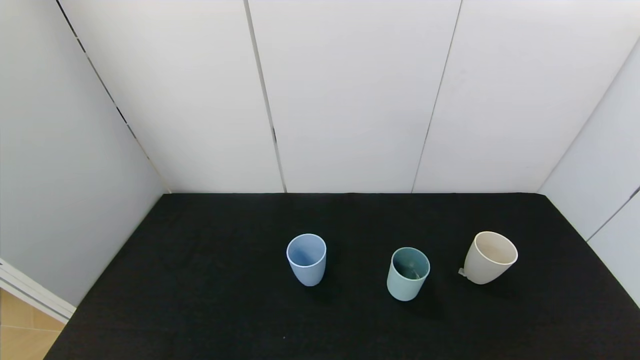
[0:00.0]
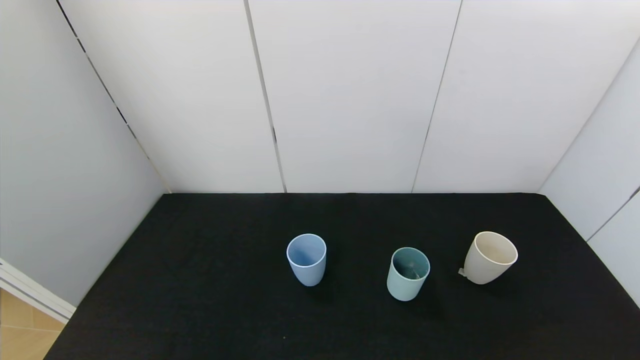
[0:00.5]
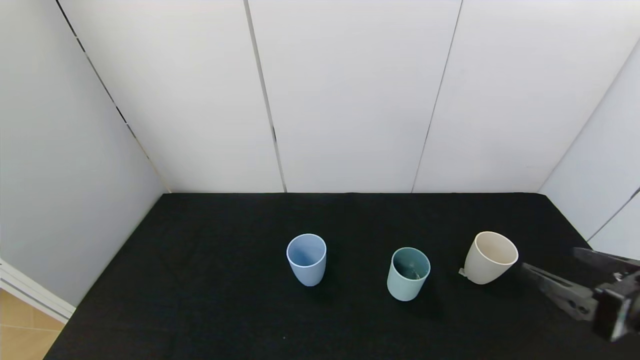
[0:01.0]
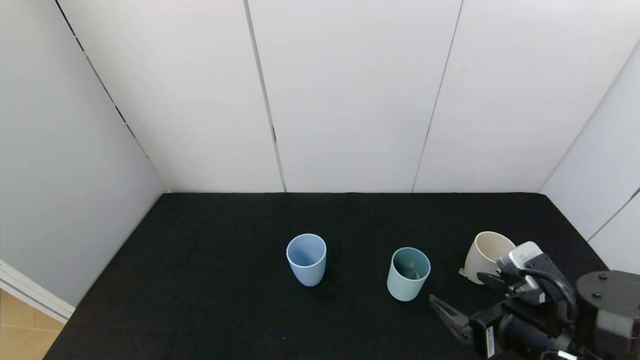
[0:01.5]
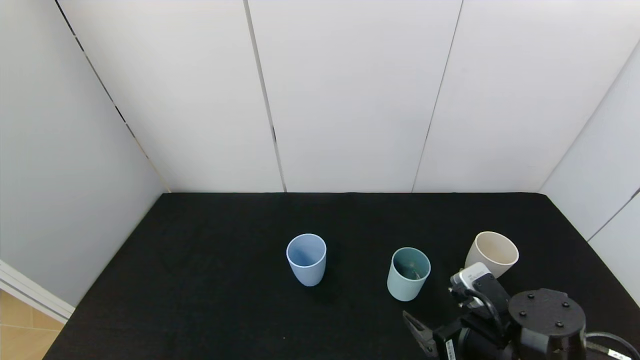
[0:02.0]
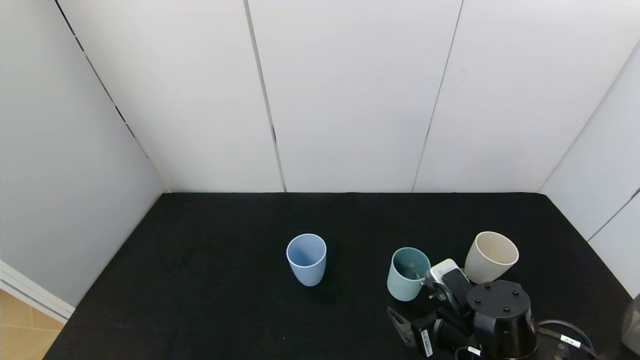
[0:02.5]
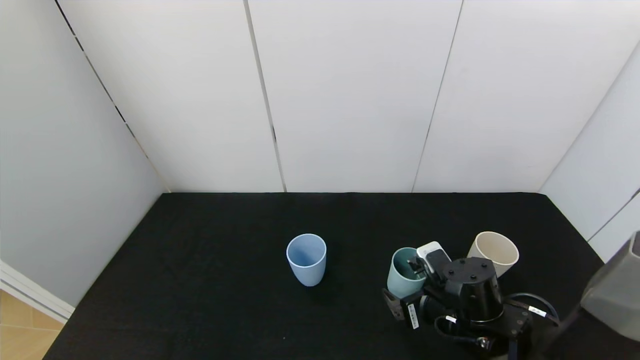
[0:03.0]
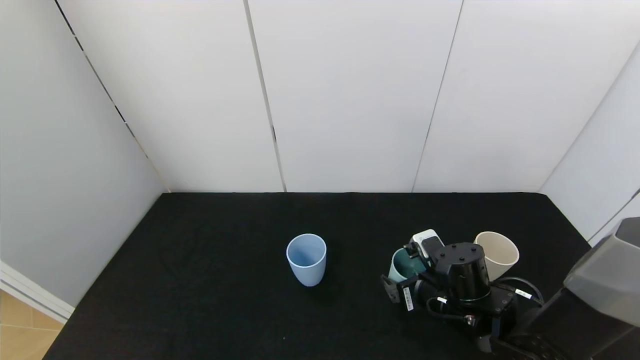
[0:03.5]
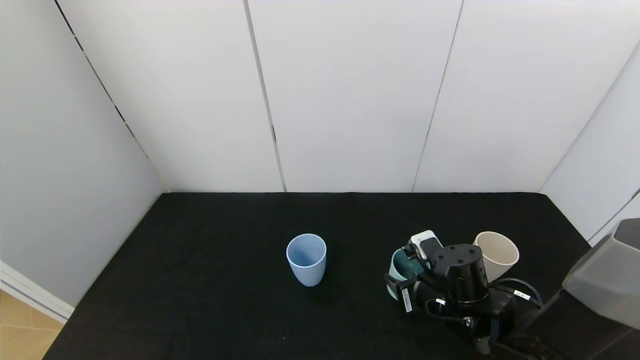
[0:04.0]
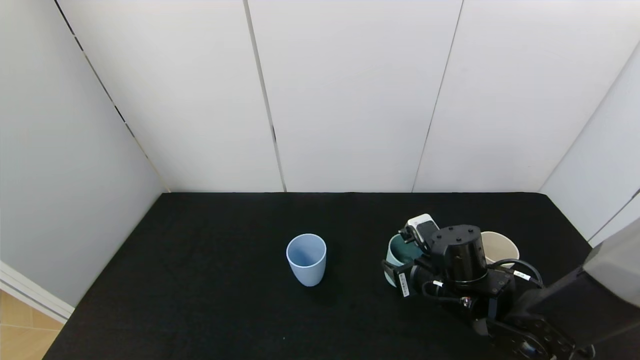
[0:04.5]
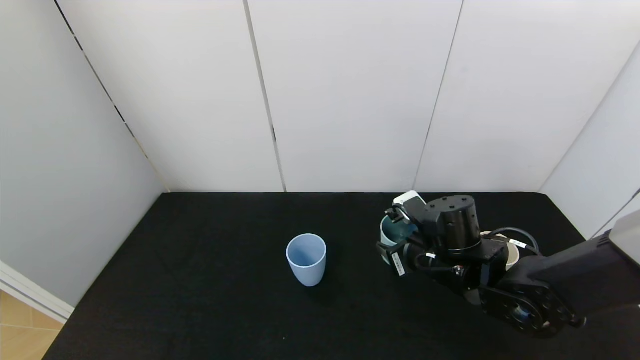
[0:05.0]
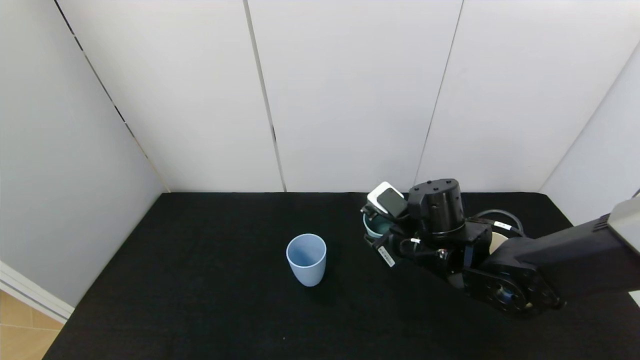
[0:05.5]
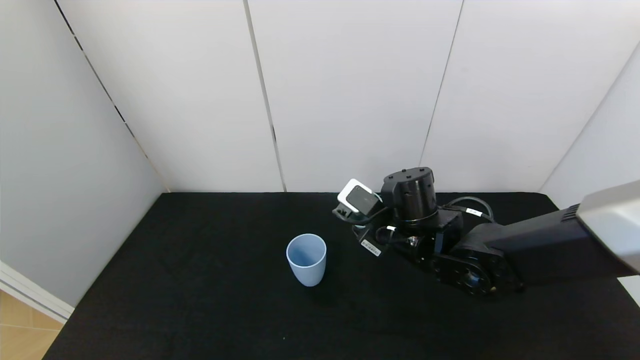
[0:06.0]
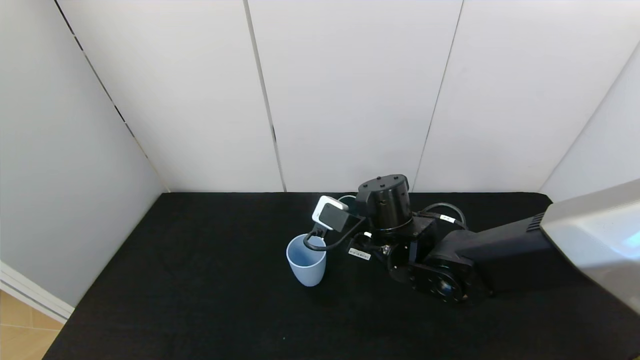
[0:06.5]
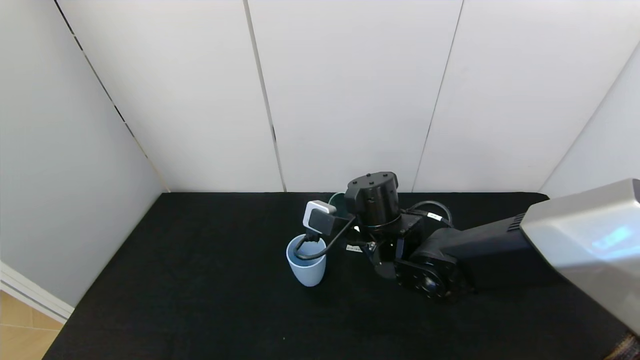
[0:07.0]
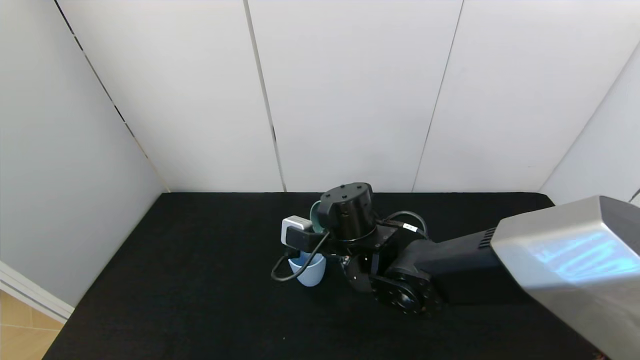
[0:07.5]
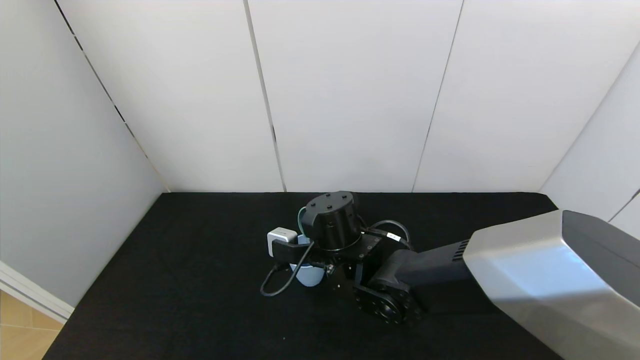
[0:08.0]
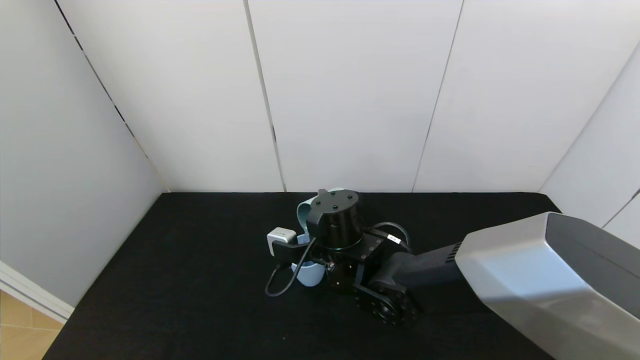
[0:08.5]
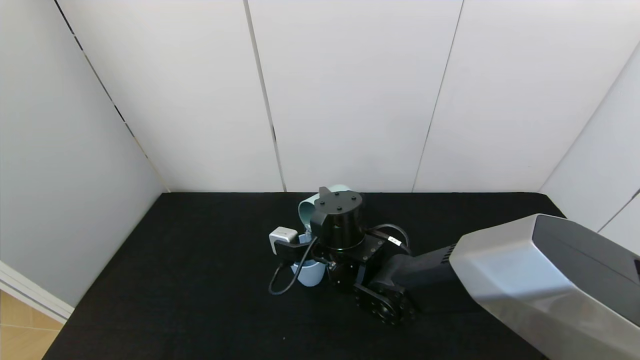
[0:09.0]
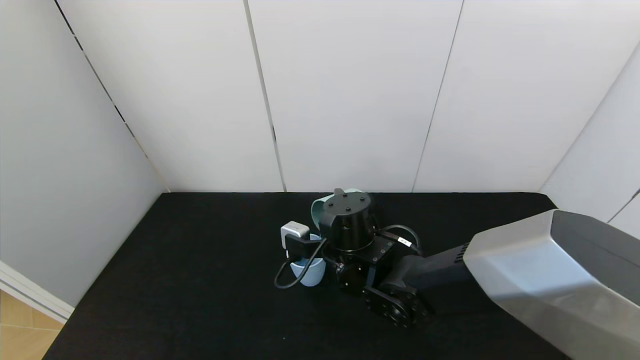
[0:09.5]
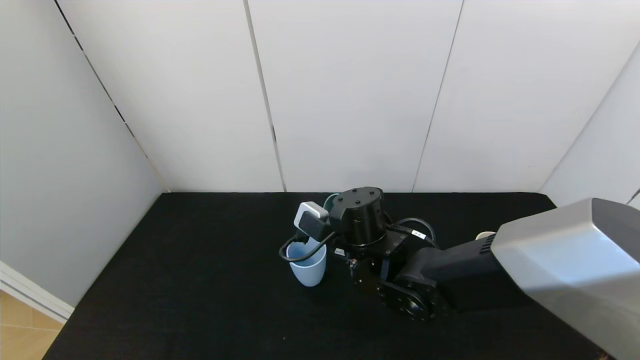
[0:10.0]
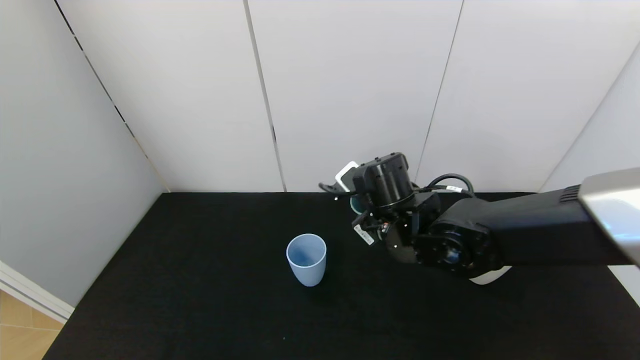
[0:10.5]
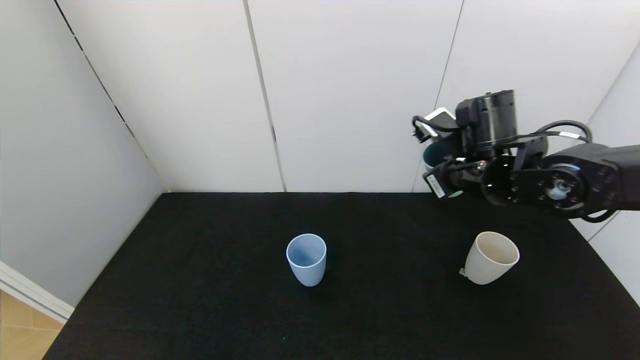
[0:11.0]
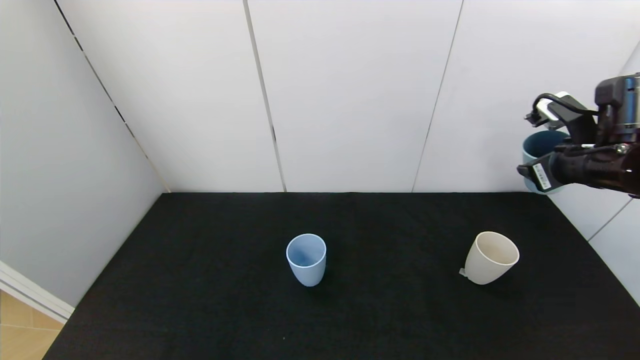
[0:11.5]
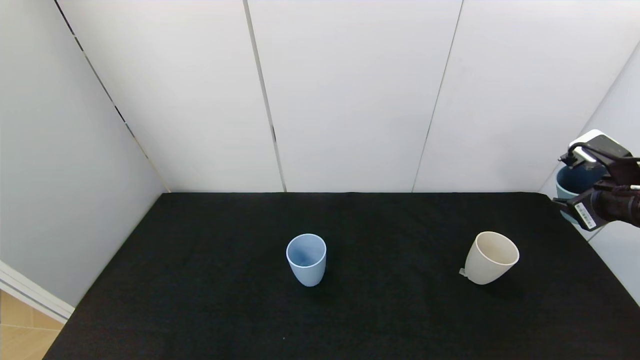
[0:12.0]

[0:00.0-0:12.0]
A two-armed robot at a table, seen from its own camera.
Task of the whole recording: use the gripper to pour the water into the other two cups on black table.
Step, 0:00.0 to 0:04.0: Grasp the green cup with the right gripper.
Step, 0:04.5 to 0:10.0: Pour water from green cup to blue cup with the right gripper.
0:00.0 to 0:02.0: The right gripper shifts about 25 cm forward and to the left.
0:02.0 to 0:04.0: The right gripper travels forward by roughly 10 cm, and closes its fingers.
0:04.0 to 0:06.0: The right gripper travels upward and to the left by some 10 cm.
0:06.0 to 0:08.0: The right gripper heads to the left, covering approximately 10 cm.
0:10.0 to 0:12.0: The right gripper moves to the right, approximately 35 cm.

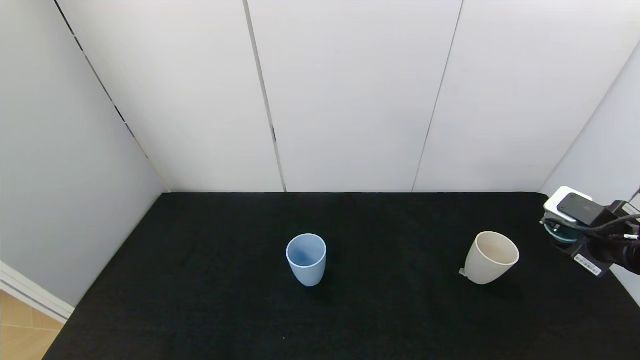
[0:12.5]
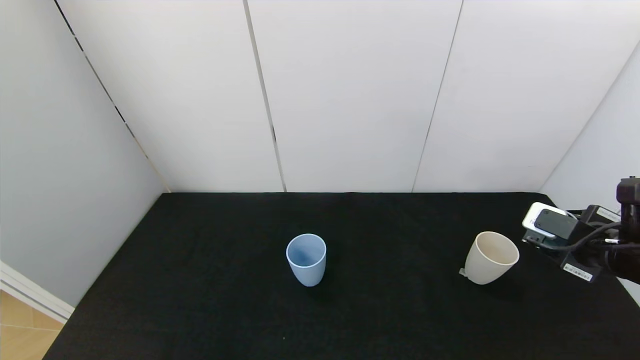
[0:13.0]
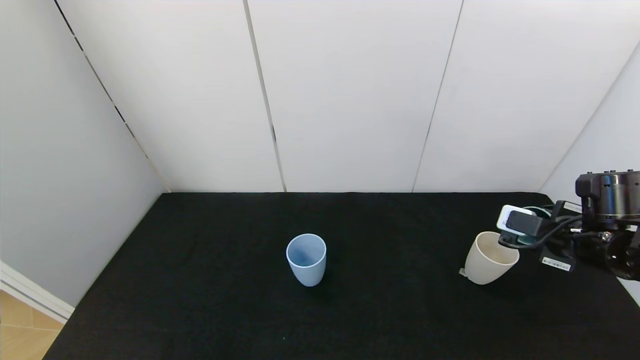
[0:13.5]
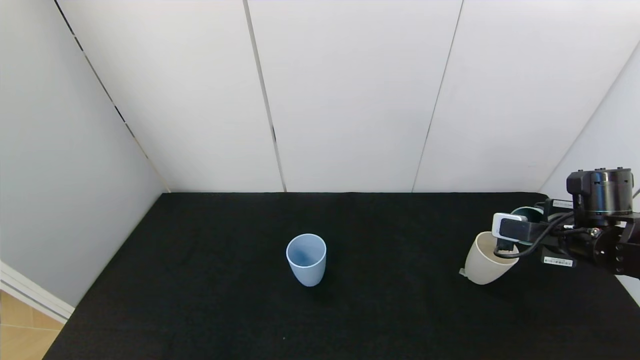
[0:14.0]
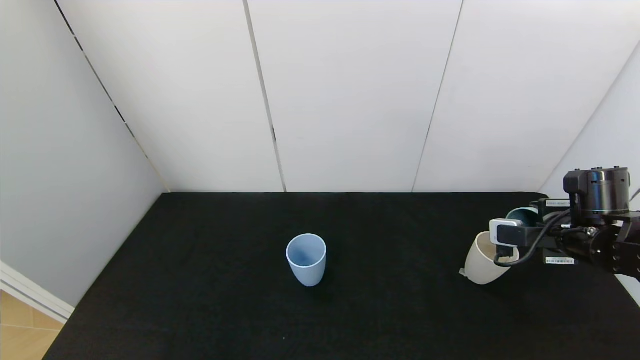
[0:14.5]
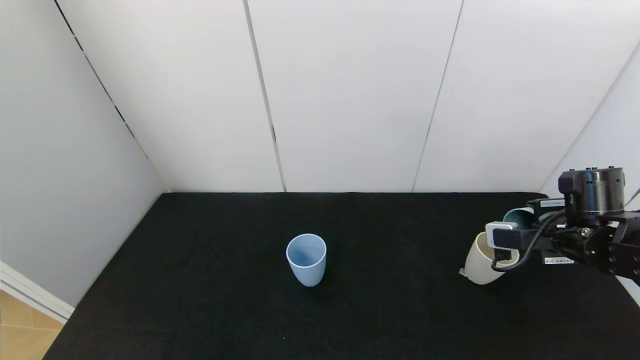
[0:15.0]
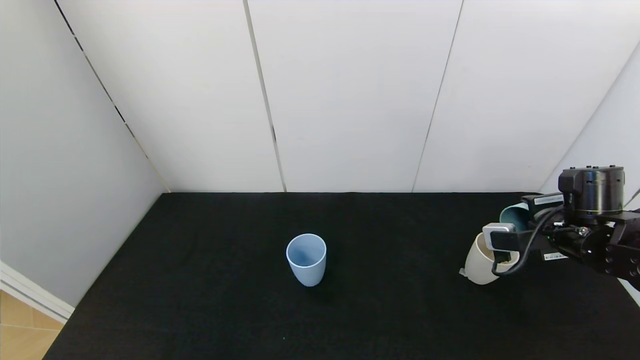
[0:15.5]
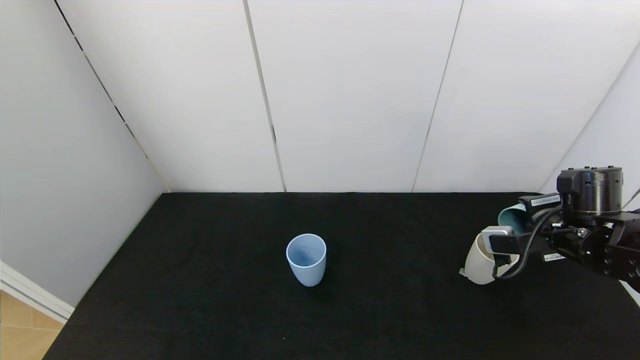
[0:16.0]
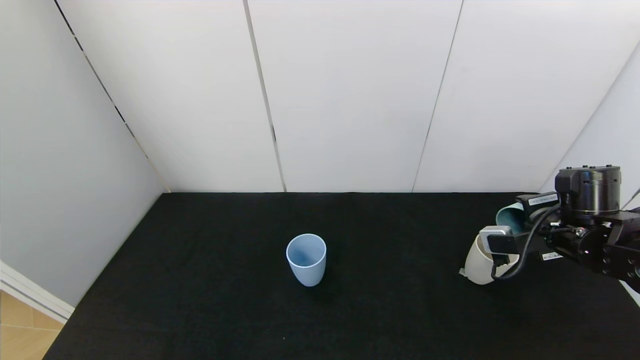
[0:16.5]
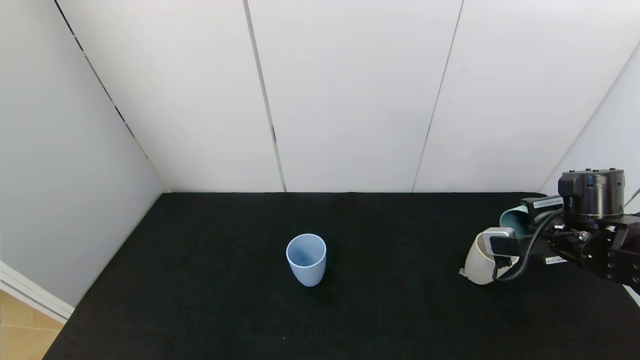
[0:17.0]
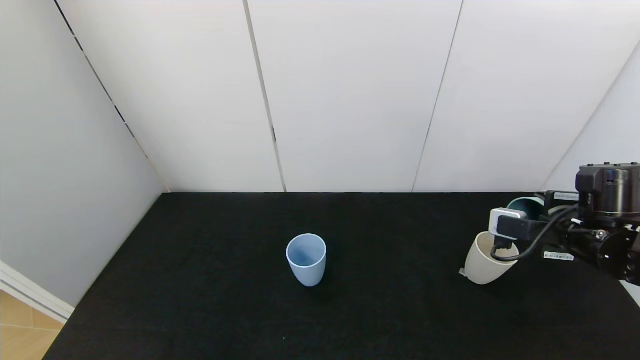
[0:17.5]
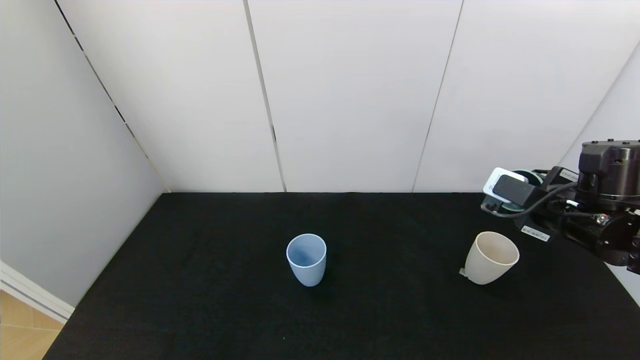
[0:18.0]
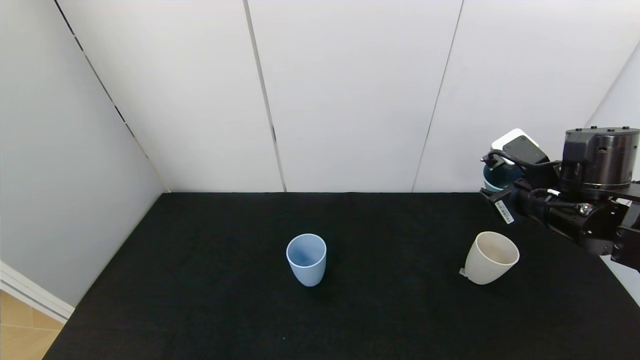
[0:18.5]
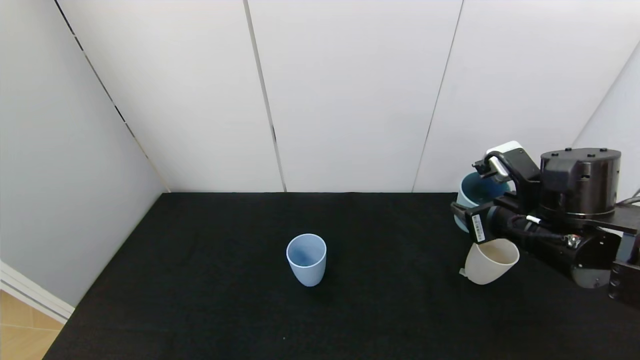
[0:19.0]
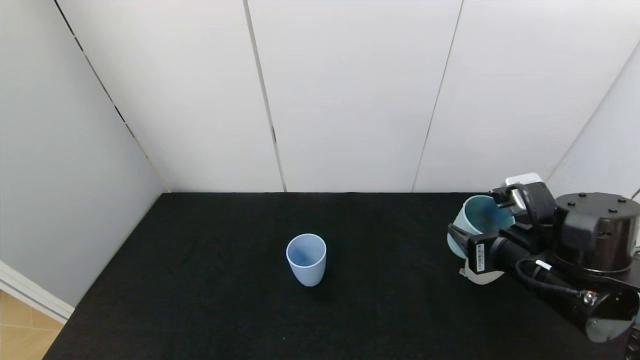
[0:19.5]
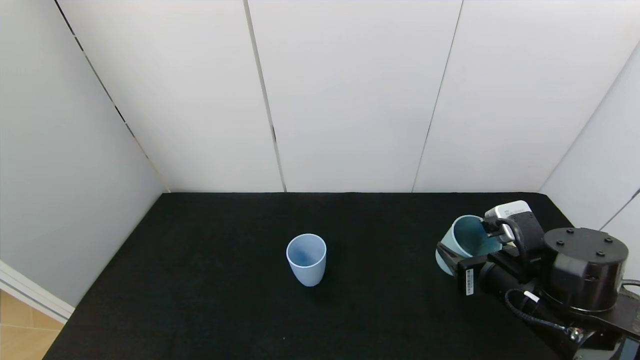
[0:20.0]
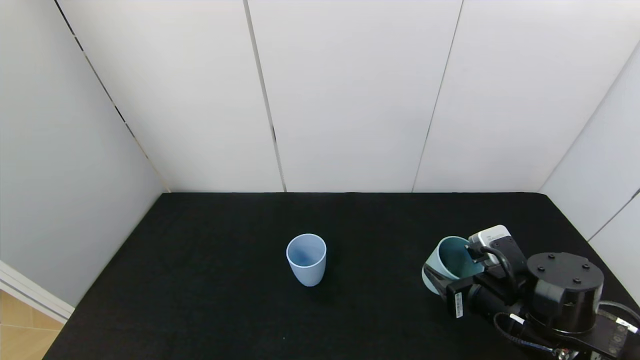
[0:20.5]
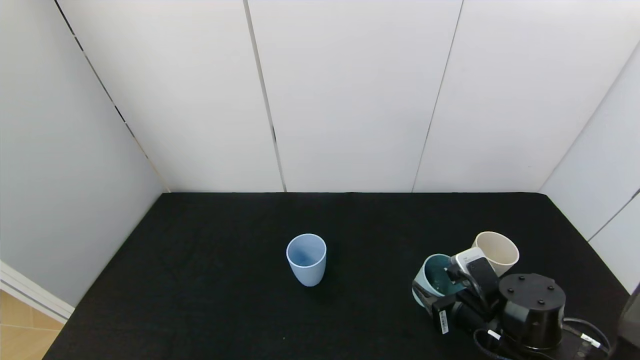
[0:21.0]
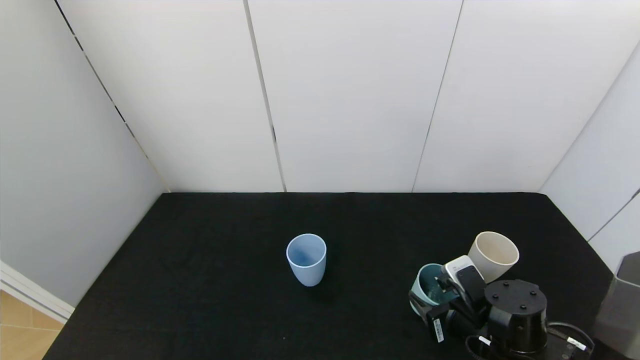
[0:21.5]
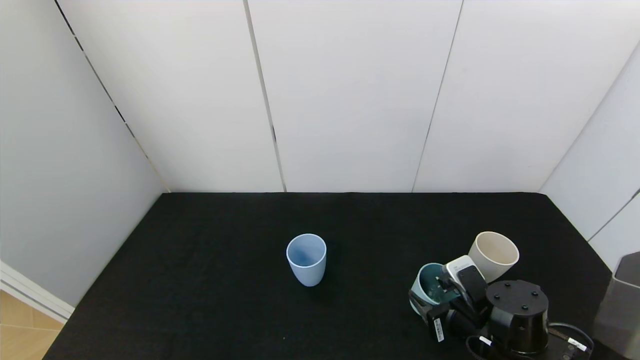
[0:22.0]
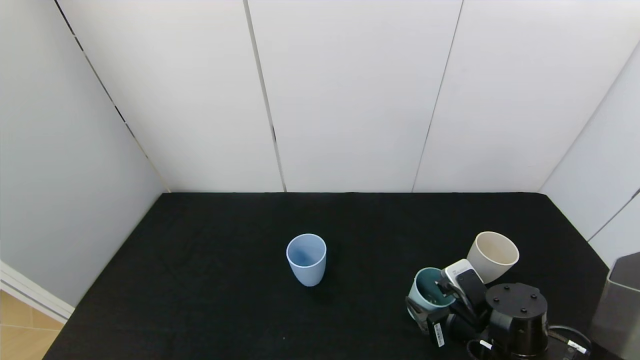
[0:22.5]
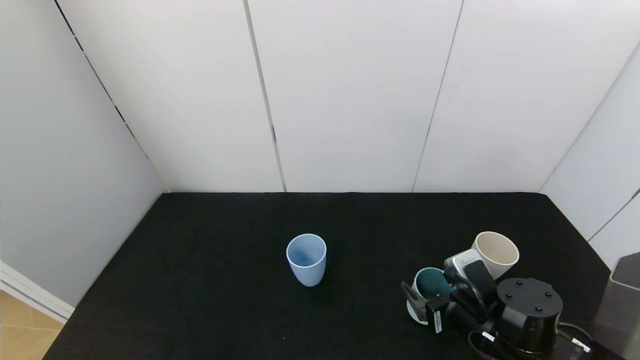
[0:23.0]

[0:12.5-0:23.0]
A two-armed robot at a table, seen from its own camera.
Task of the whole recording: use the gripper to pour the water into the other two cups on black table.
Step, 0:12.5 to 0:18.0: Pour water from green cup to white cup with the right gripper.
0:12.5 to 0:14.5: The right gripper travels forward by some 5 cm.
0:14.5 to 0:16.5: There are only small adjustments of the grippers.
0:16.5 to 0:19.0: The right gripper travels to the left by approximately 10 cm.
0:19.0 to 0:21.0: The right gripper is displaced downward by approximately 15 cm.
0:21.0 to 0:23.0: The right gripper opens its fingers.
